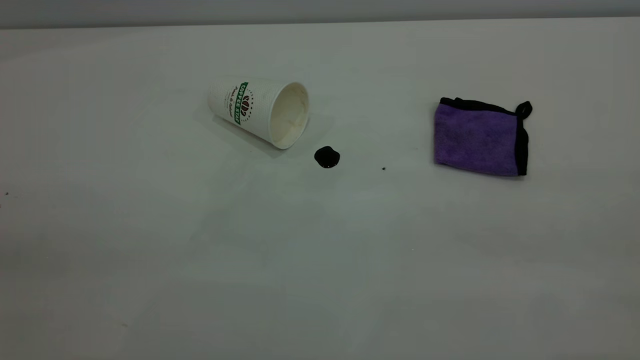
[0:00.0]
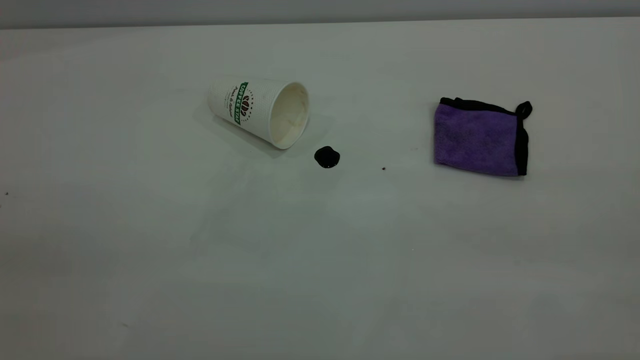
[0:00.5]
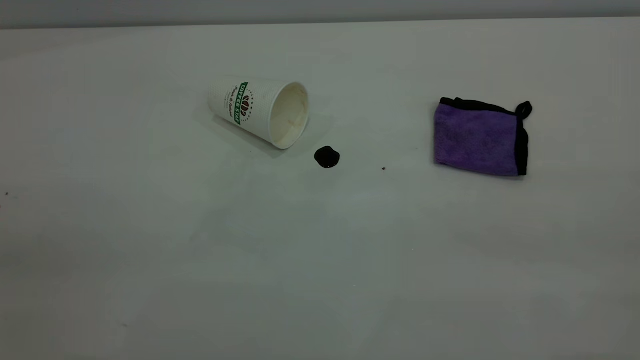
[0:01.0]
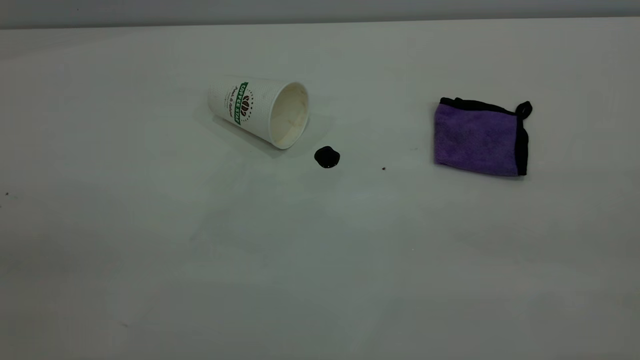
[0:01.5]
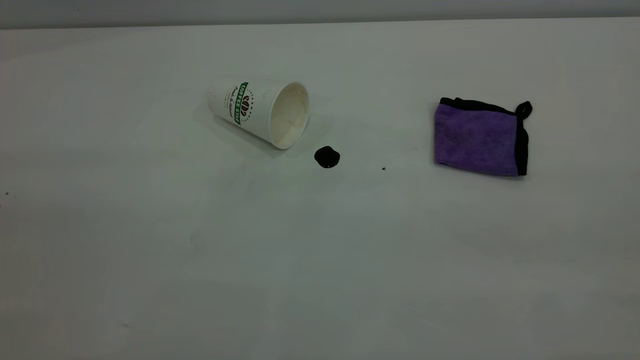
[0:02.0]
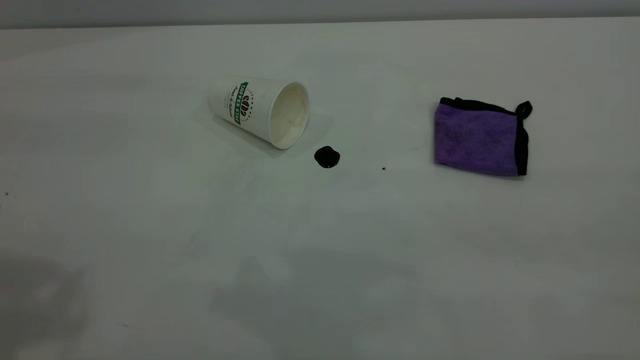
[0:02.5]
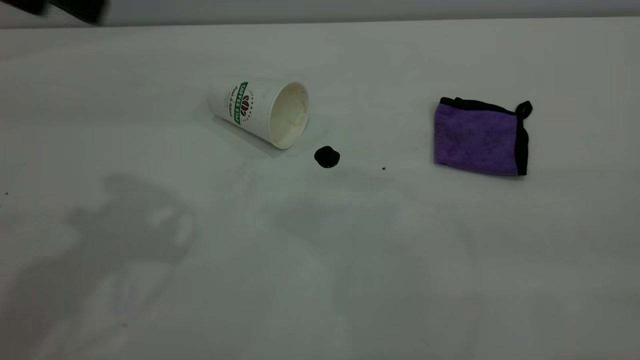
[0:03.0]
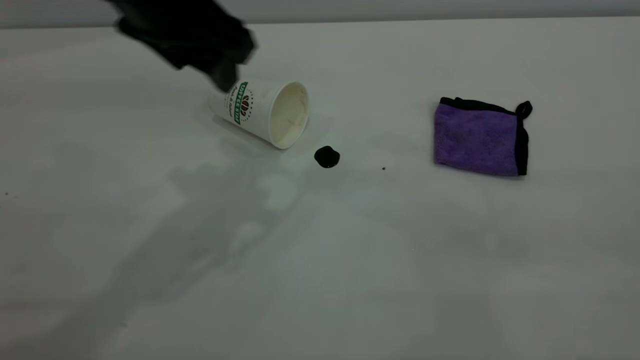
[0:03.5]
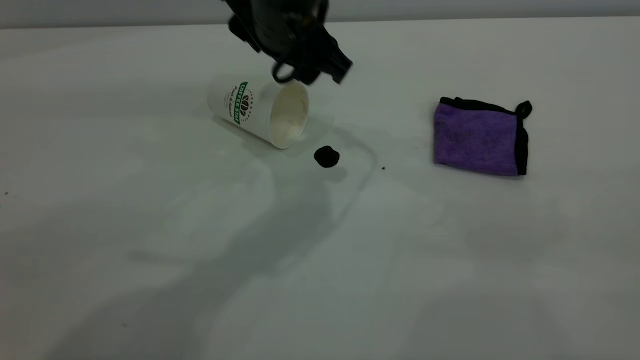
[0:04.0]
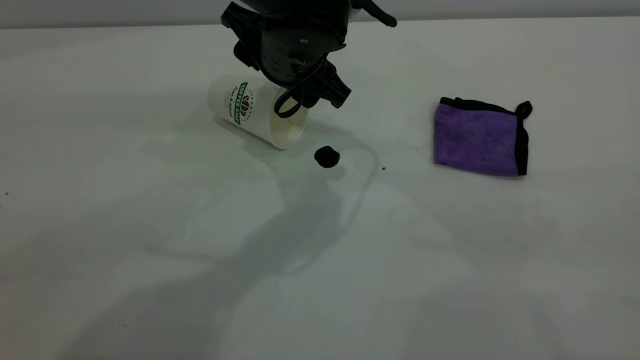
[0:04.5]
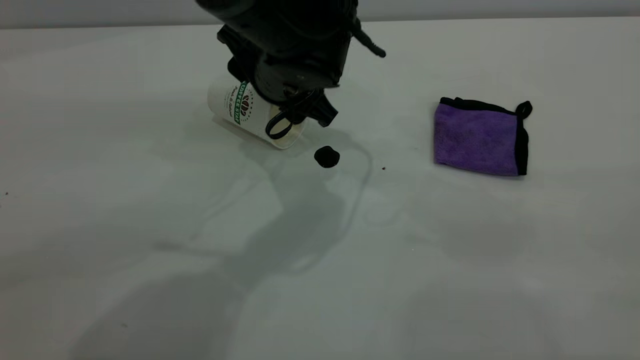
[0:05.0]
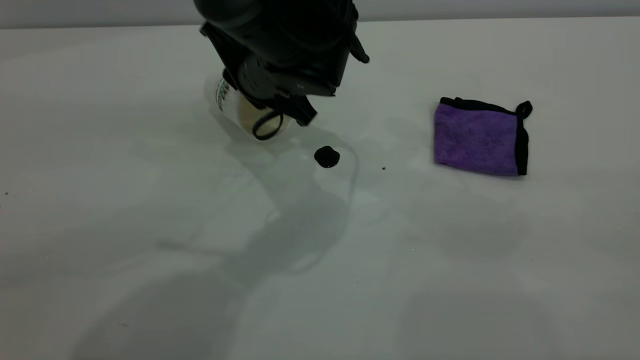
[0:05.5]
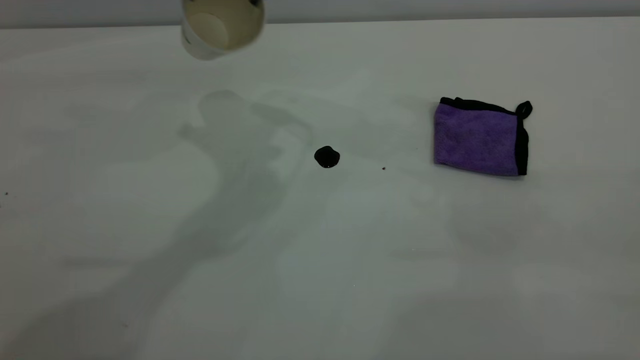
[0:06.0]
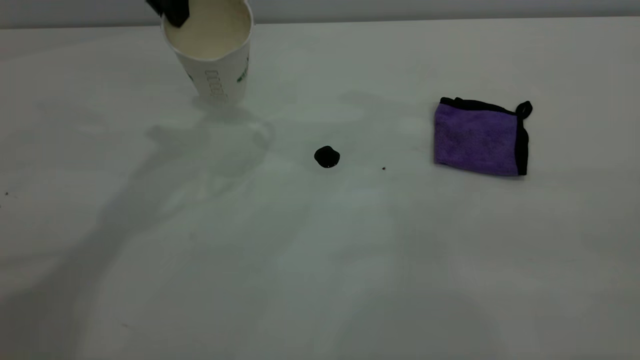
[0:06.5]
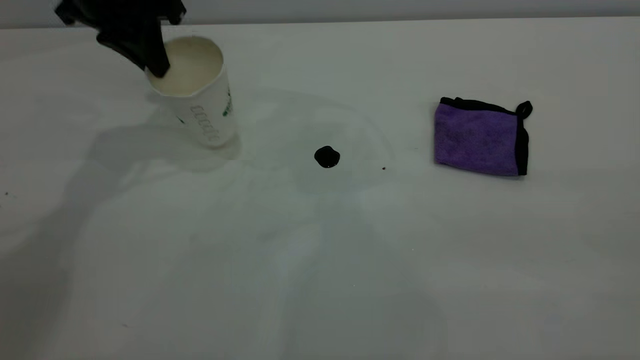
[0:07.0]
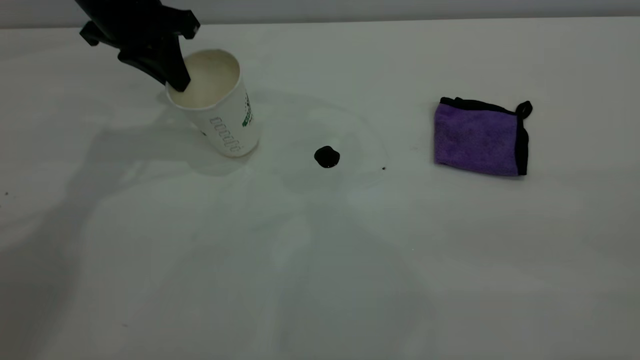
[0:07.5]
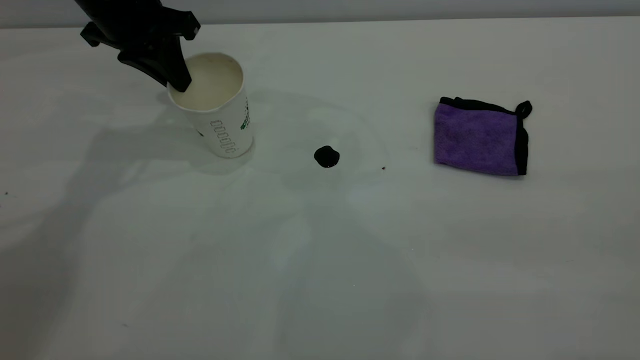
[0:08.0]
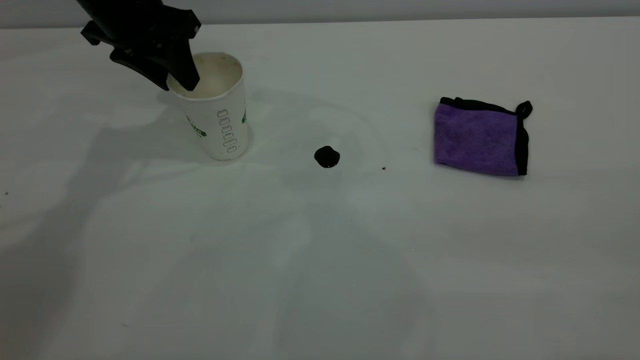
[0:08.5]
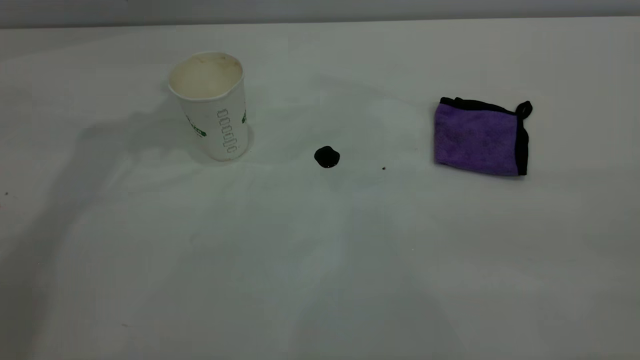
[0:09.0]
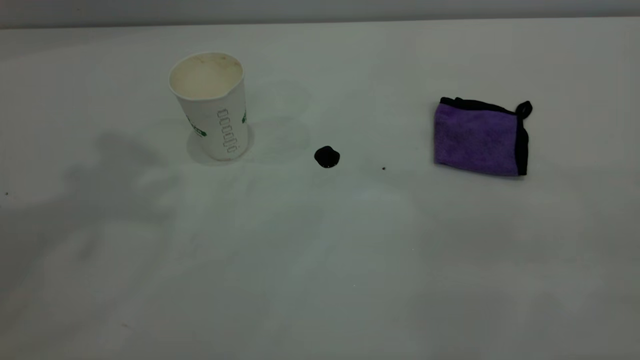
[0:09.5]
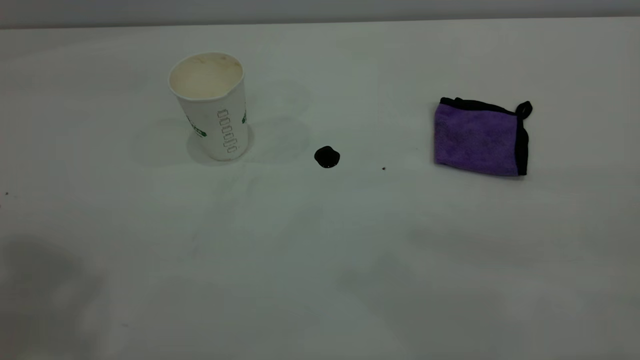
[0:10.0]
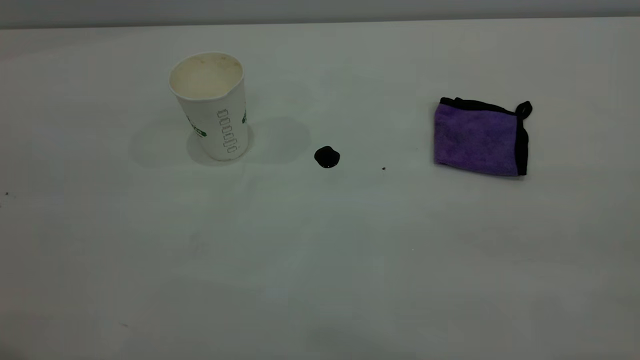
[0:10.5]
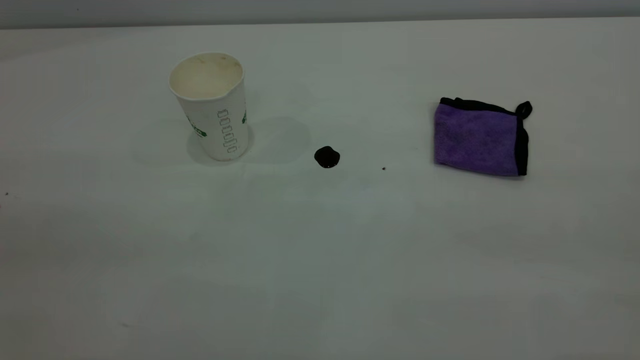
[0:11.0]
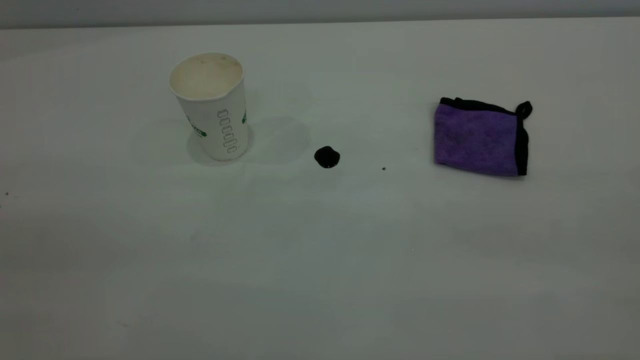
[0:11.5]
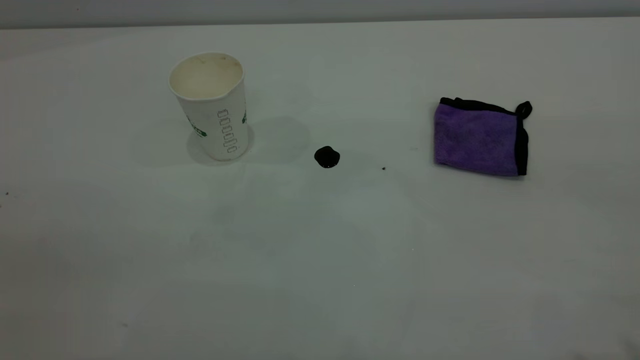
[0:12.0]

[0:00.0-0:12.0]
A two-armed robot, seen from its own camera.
Task of the whole recording: the left gripper pick up the fallen cup and place it upright, the right gripper grasp the purple rag and wipe the coffee stain on the table, the right gripper put the purple rag back in its original position.
Step, 0:00.0 to 0:08.5: Stand the paper cup upright.
0:02.0 to 0:04.0: The left gripper goes about 50 cm forward, to the right and downward.
0:04.0 to 0:06.0: The left gripper shifts roughly 10 cm upward and to the left, and closes up.
0:06.0 to 0:08.0: The left gripper moves to the left and downward, approximately 15 cm.
0:08.0 to 0:10.0: The left gripper heads upward and backward, covering about 40 cm, and opens its fingers.

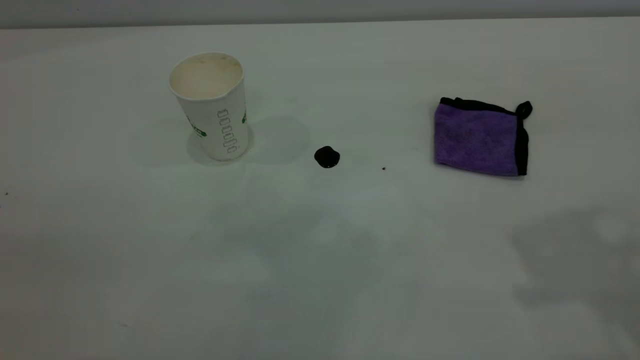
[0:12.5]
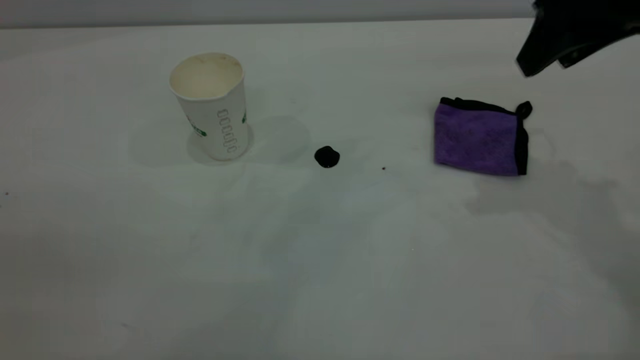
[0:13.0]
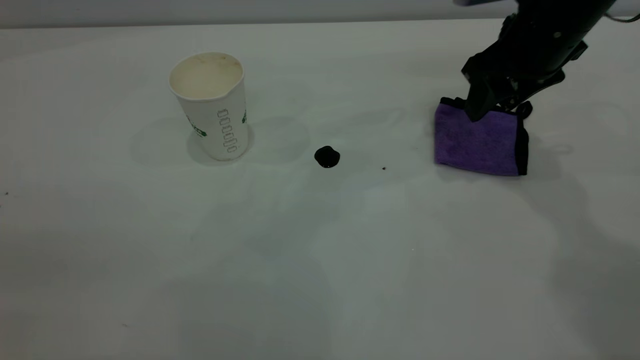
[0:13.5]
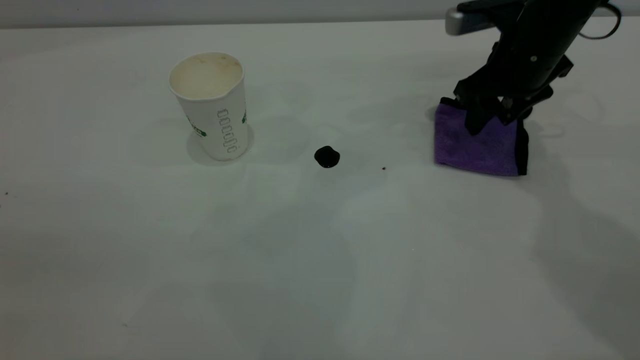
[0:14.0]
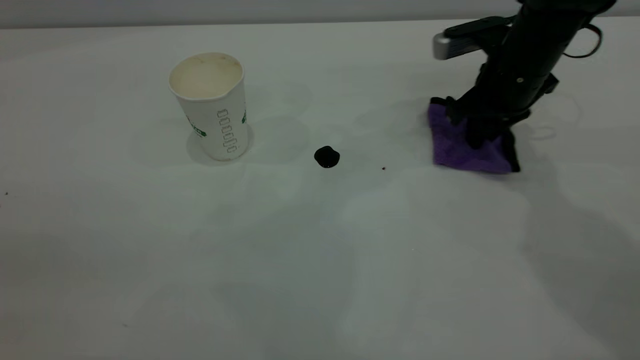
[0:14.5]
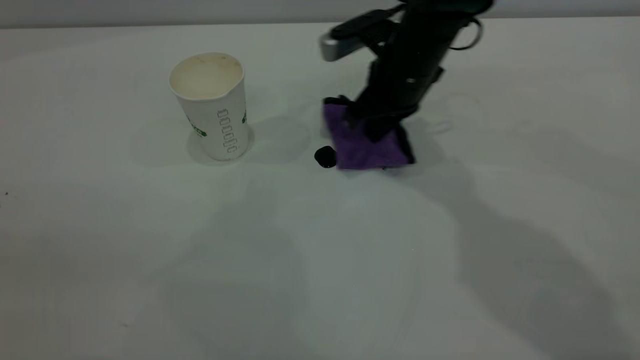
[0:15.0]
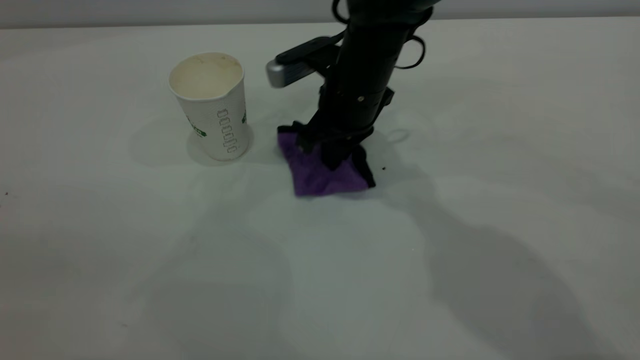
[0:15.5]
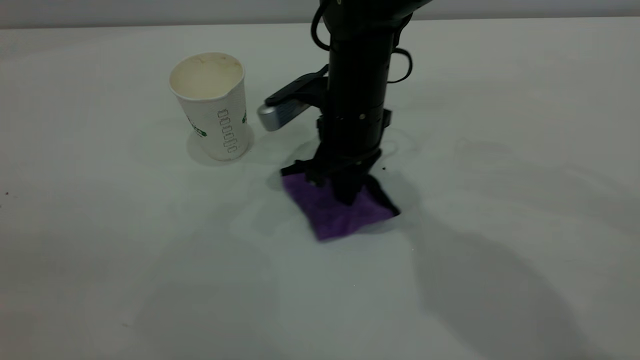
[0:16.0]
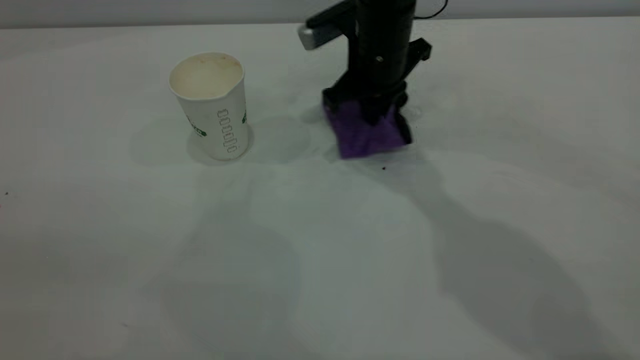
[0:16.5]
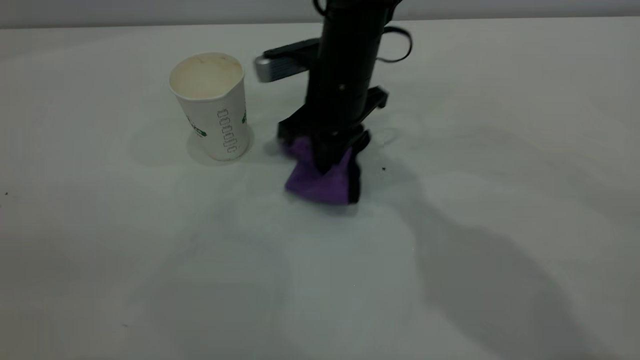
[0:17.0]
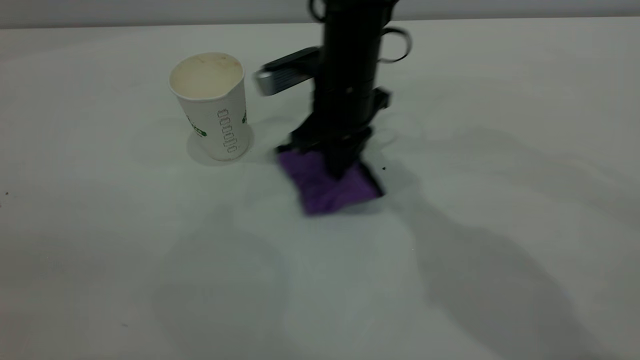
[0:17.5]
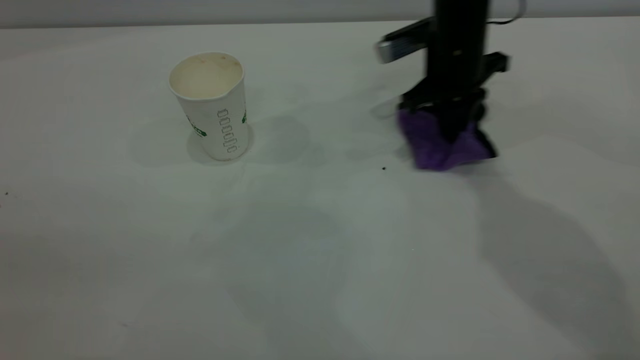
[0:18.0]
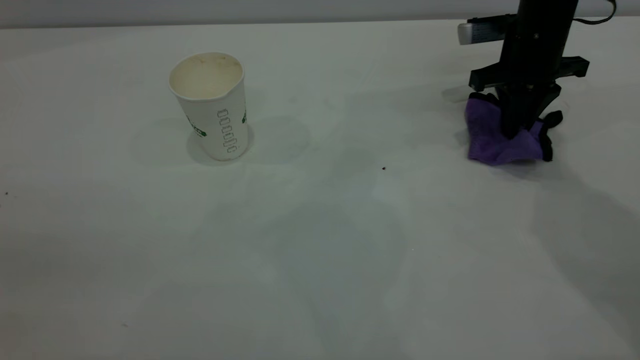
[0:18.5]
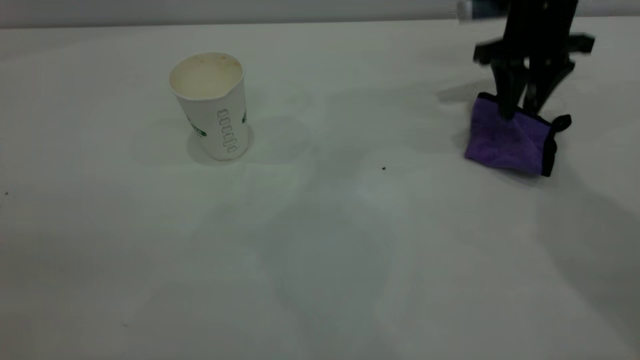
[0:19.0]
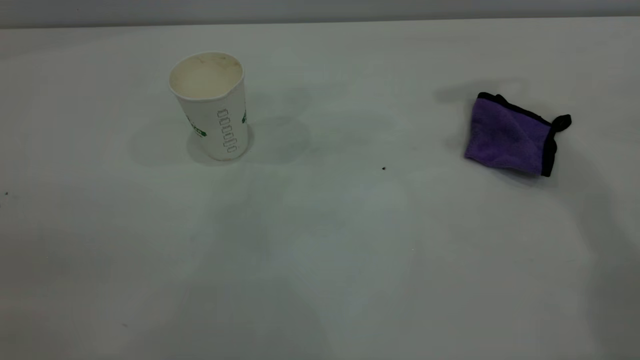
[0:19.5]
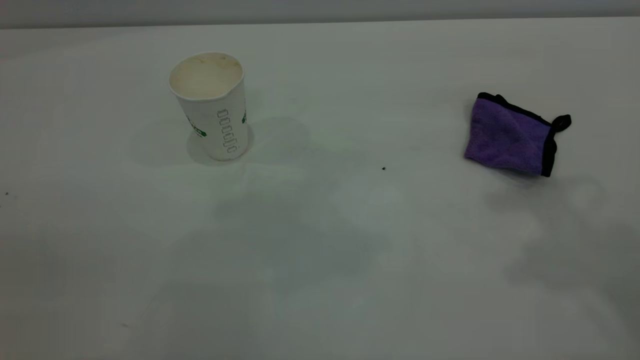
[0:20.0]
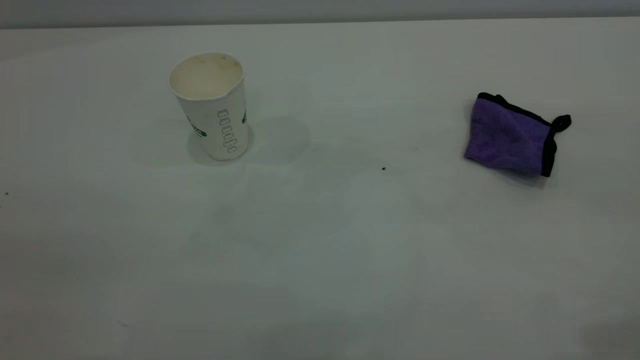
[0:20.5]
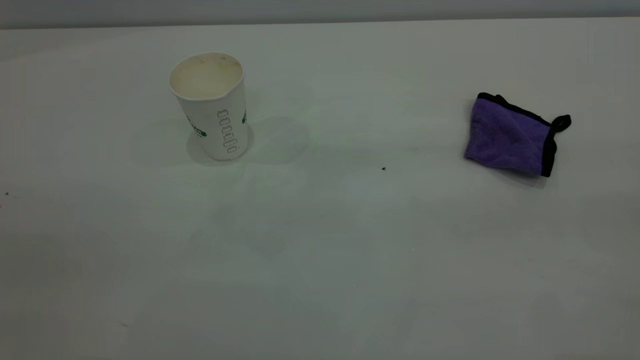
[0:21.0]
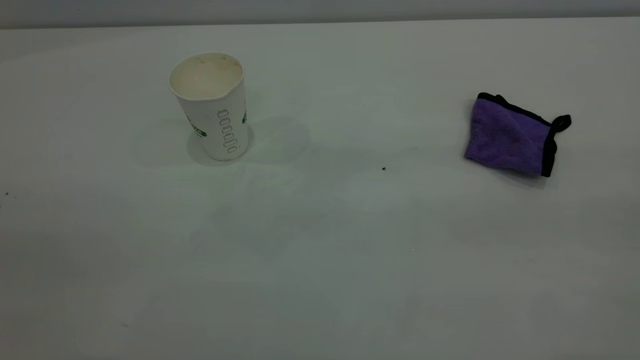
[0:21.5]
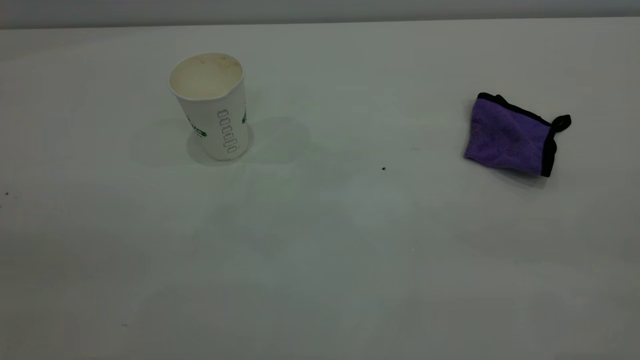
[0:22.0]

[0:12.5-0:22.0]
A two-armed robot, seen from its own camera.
Task of the whole recording: the left gripper pick up the fallen cup and place it upright, the right gripper grasp the purple rag and wipe the coffee stain on the table, the right gripper put the purple rag back in its original position.
Step, 0:12.5 to 0:19.0: Wipe the stains off the table with a rag.
0:12.5 to 0:14.5: The right gripper travels downward and forward by some 30 cm, and closes up.
0:14.5 to 0:16.5: The right gripper moves to the left, approximately 15 cm.
0:16.5 to 0:18.0: The right gripper goes about 10 cm to the right.
0:18.0 to 0:20.0: The right gripper is displaced upward and backward by about 35 cm, and opens.
